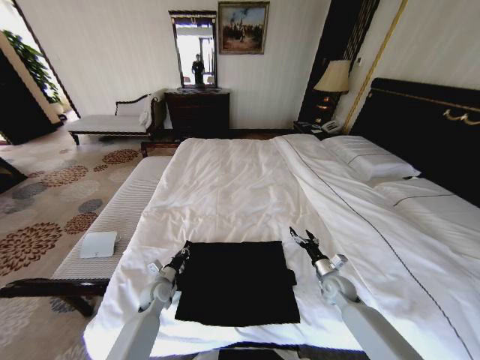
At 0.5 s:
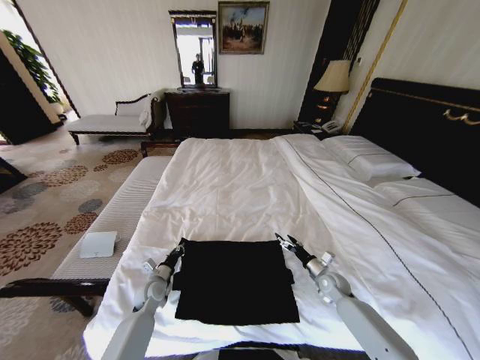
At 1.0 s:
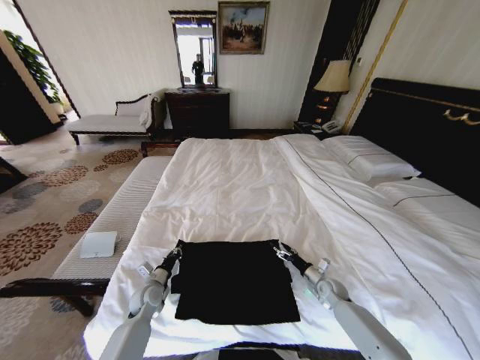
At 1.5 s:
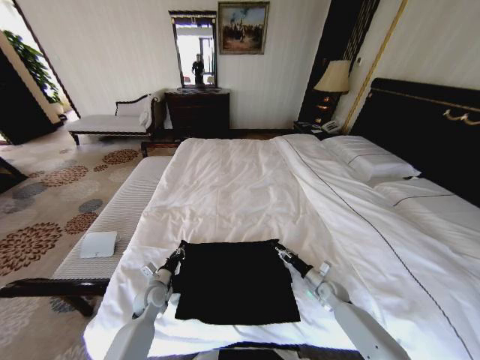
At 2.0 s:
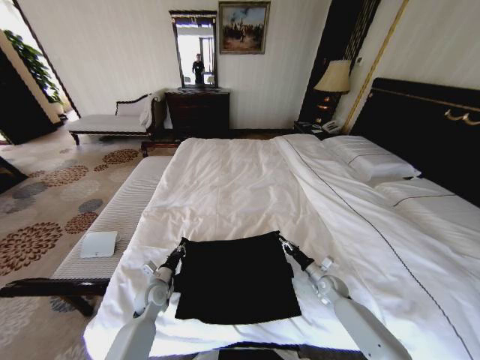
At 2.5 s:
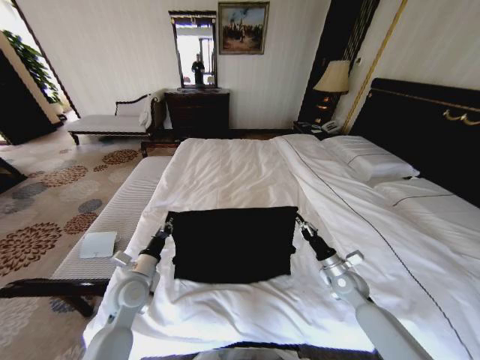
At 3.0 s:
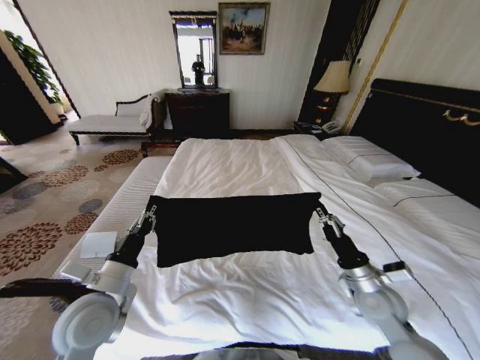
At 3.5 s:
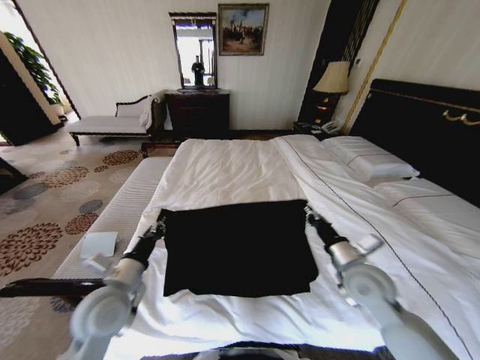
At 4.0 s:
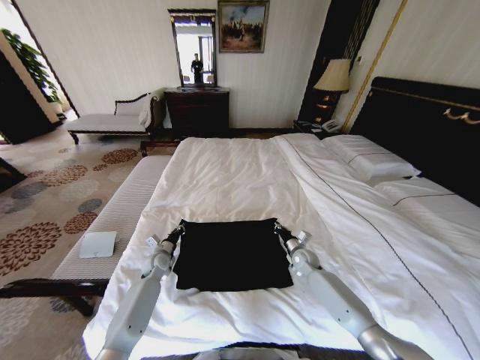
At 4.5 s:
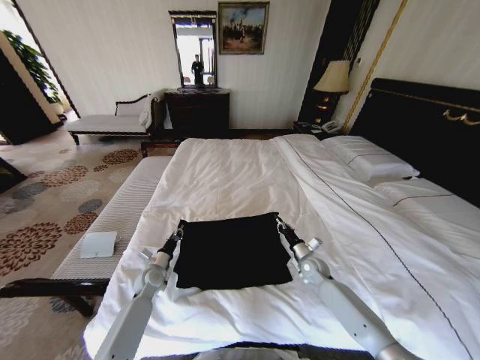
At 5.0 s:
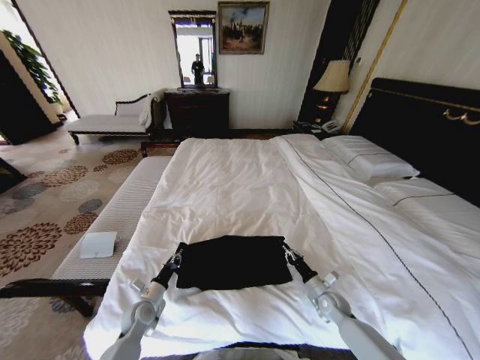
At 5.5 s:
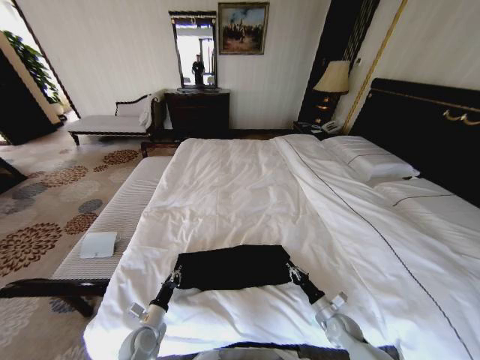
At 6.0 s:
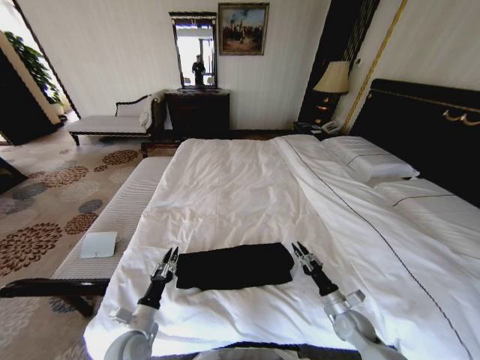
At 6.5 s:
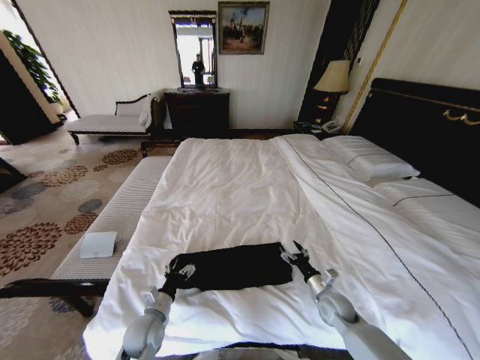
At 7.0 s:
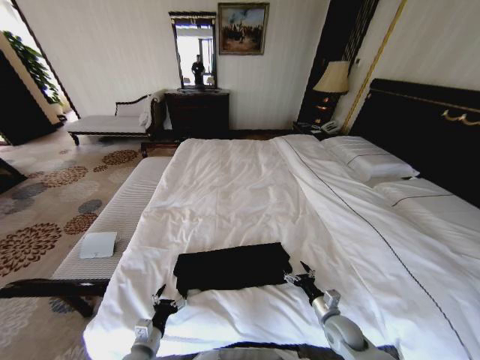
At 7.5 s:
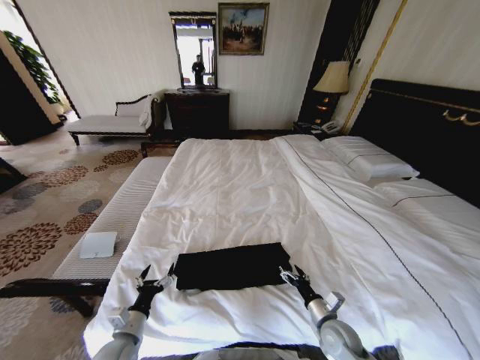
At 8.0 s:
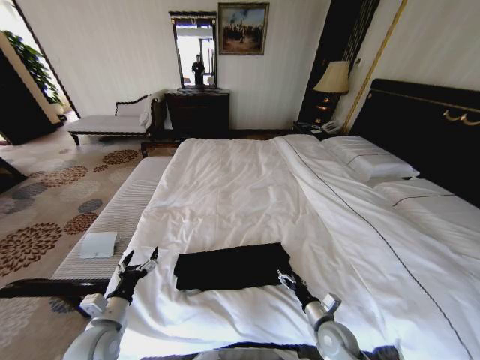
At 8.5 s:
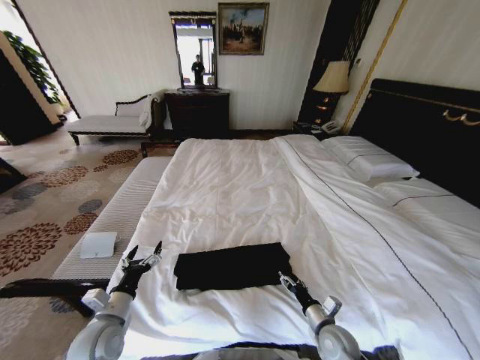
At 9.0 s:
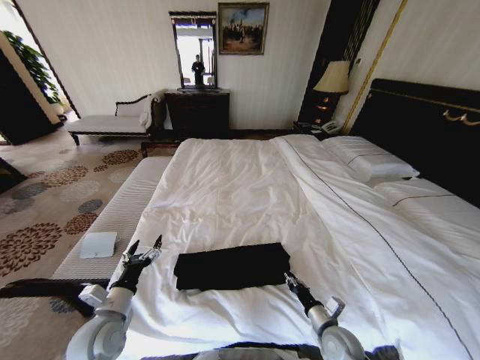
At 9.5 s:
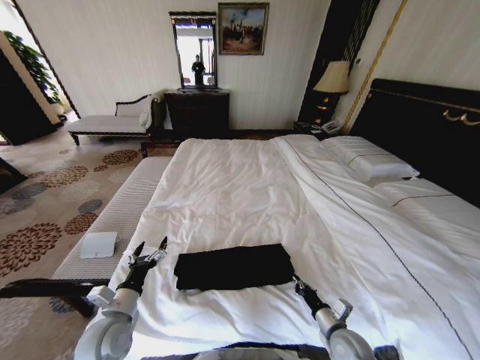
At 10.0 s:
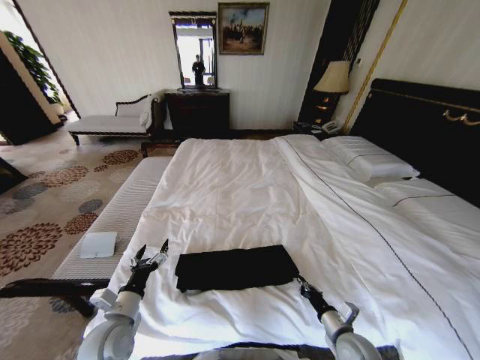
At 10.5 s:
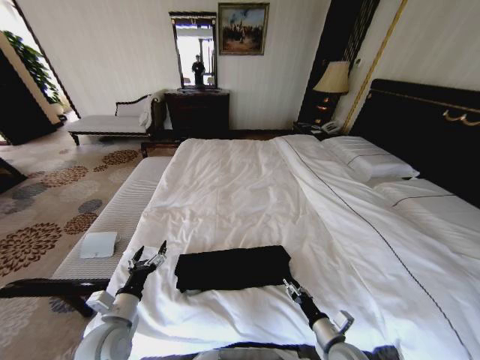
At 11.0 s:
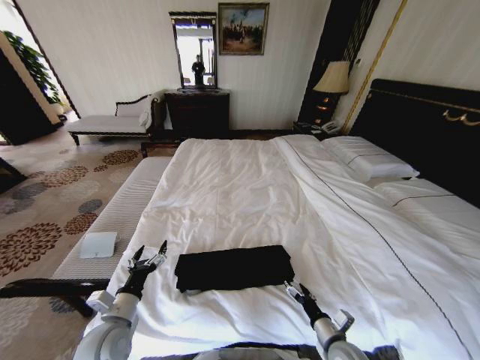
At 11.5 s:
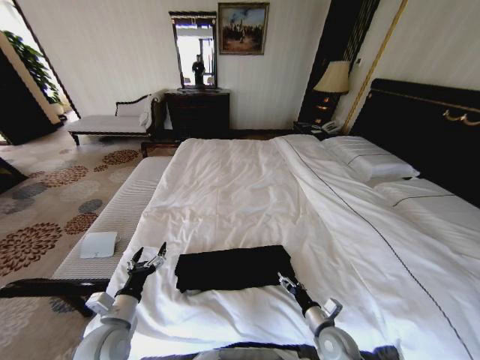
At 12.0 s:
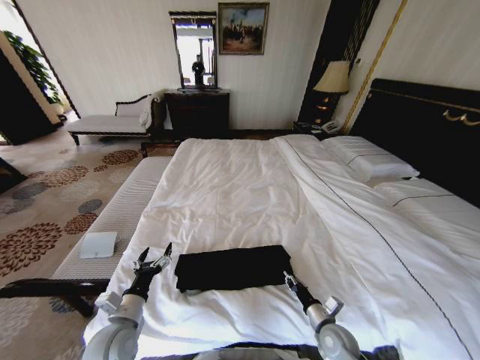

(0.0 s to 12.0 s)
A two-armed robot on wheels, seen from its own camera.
Task of the whole recording: Fold the clothes on the bed.
0.0 s - 2.0 s: The right gripper moves downward, about 5 cm, and closes its fingers.
2.0 s - 4.0 s: The left gripper travels forward by about 10 cm, and moves roughly 20 cm upward and comes back. The right gripper is displaced to the left and forward by roughly 10 cm, and moves some 25 cm upward and comes back.
4.0 s - 6.0 s: The right gripper shifts approximately 20 cm backward and to the right. Meanwhile the left gripper travels backward by some 25 cm.
6.0 s - 8.0 s: The right gripper shifts some 10 cm to the left, and opens up; the left gripper is displaced upward and to the left by approximately 10 cm, and opens its fingers.
8.0 s - 10.0 s: The right gripper closes its fingers.
10.0 s - 12.0 s: The right gripper opens, then closes once more.

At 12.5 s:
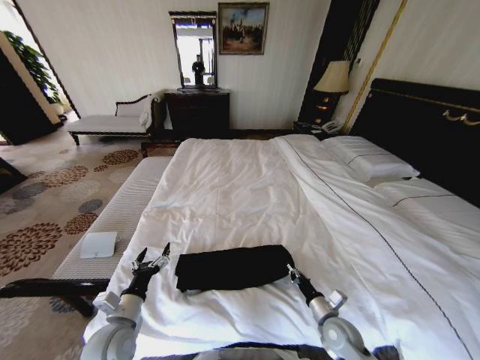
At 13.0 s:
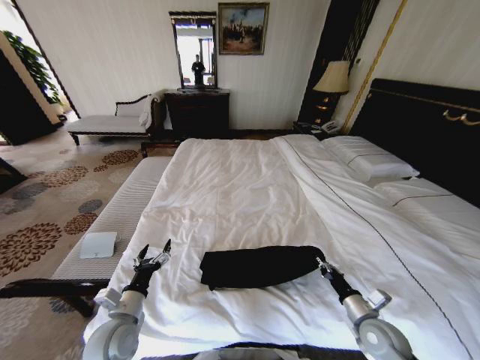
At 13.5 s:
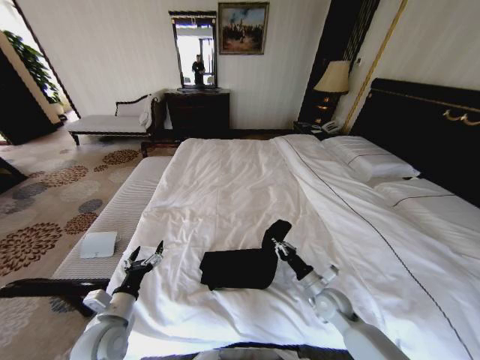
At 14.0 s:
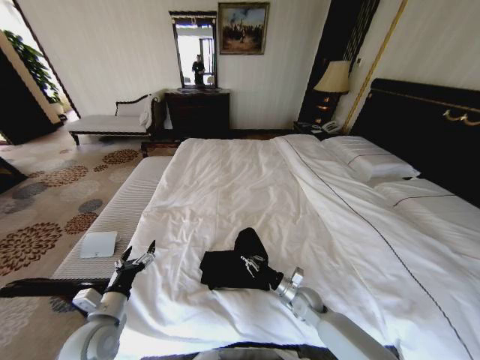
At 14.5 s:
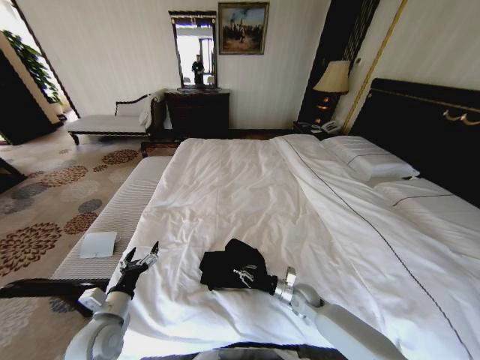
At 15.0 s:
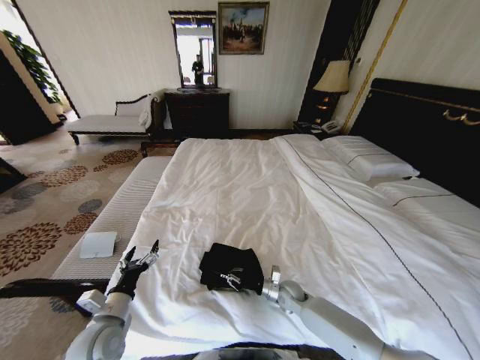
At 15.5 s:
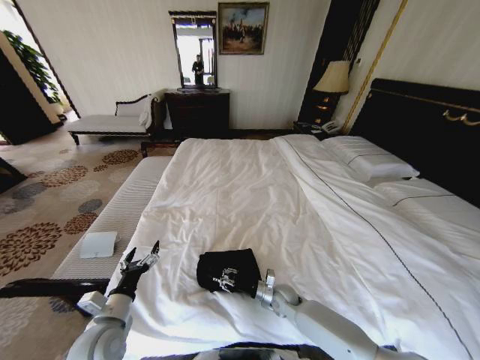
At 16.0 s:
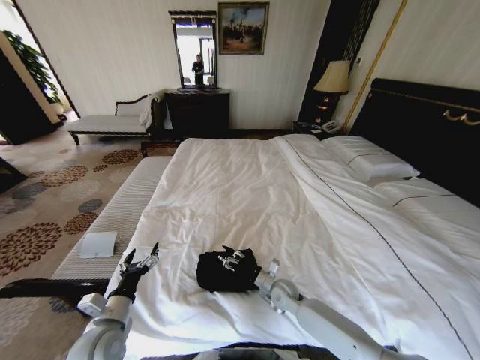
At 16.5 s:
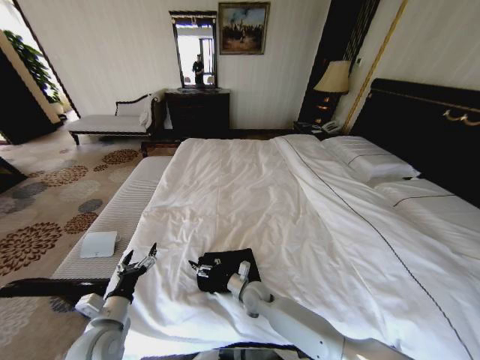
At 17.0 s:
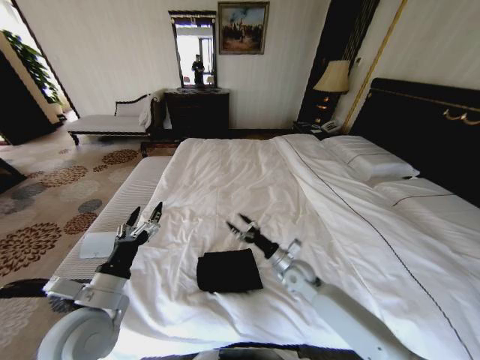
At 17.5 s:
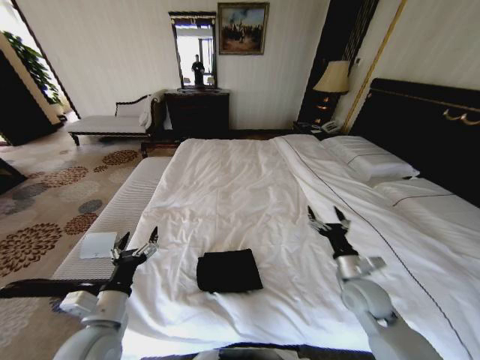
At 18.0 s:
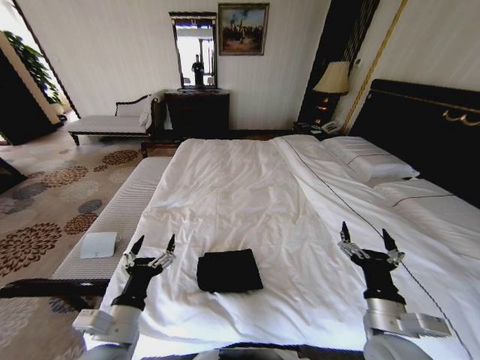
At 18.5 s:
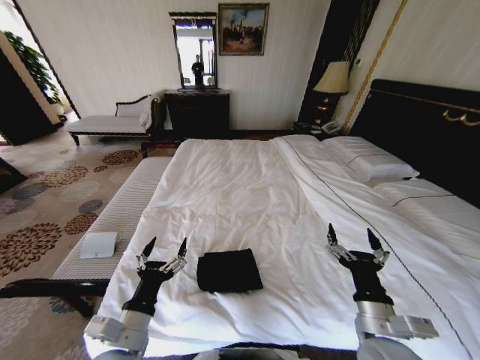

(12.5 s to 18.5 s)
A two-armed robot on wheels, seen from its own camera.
Task of the whole recording: Fold the clothes on the bed.
12.5 s - 14.5 s: The right gripper shifts approximately 10 cm forward and to the left.
14.5 s - 16.5 s: The right gripper heads to the left, covering about 15 cm, and opens up.
16.5 s - 18.5 s: The right gripper moves upward, backward and to the right, approximately 30 cm. The left gripper moves to the right, upward and backward, roughly 15 cm.

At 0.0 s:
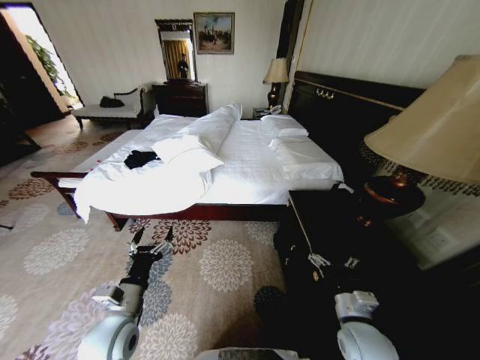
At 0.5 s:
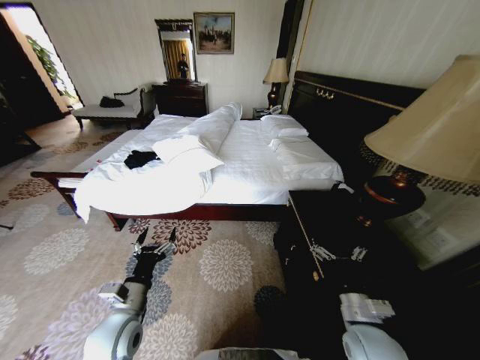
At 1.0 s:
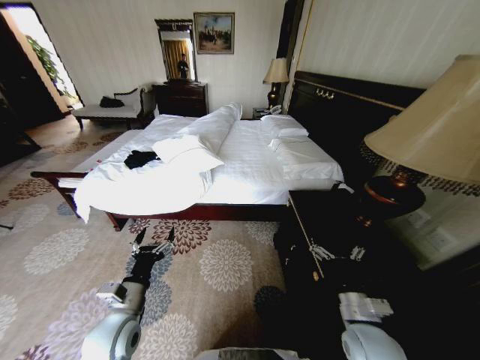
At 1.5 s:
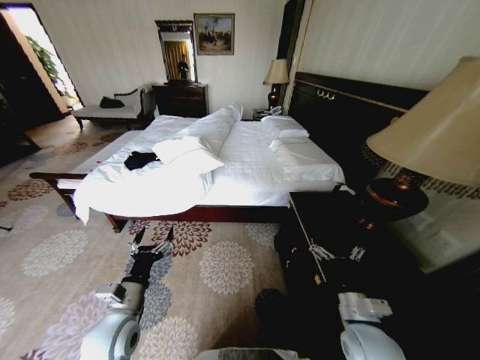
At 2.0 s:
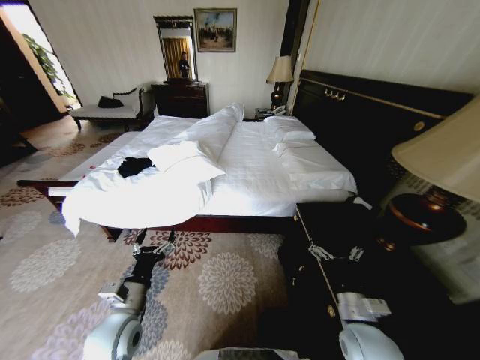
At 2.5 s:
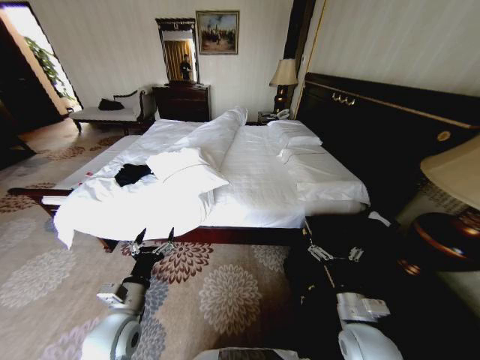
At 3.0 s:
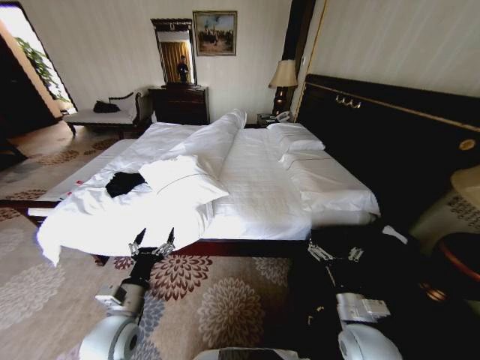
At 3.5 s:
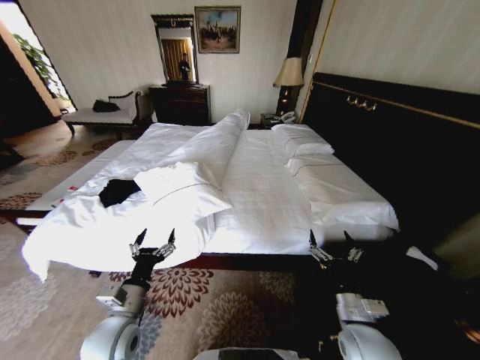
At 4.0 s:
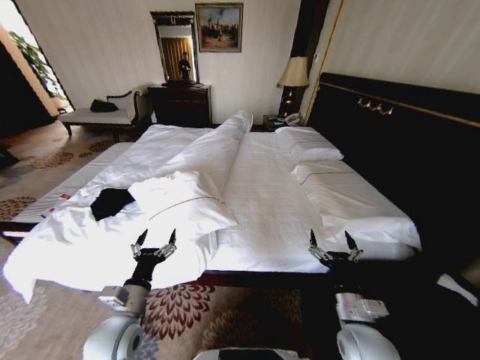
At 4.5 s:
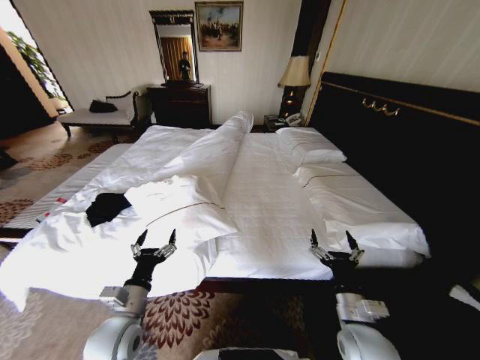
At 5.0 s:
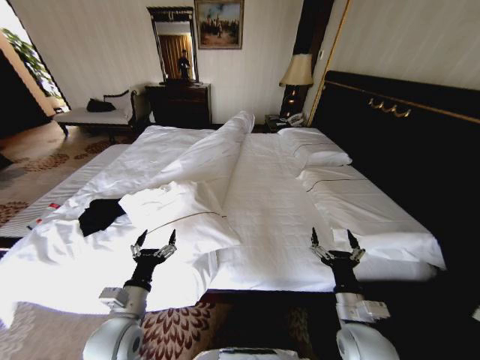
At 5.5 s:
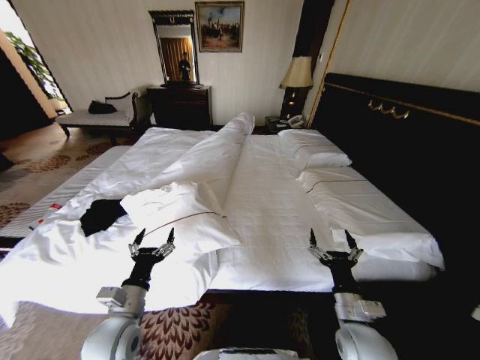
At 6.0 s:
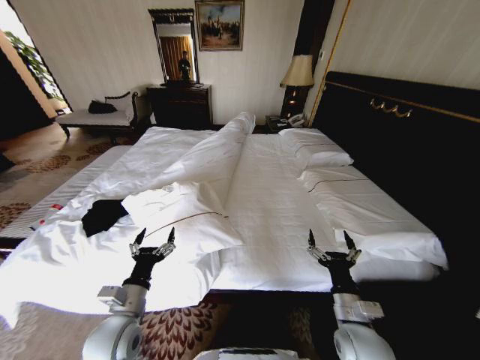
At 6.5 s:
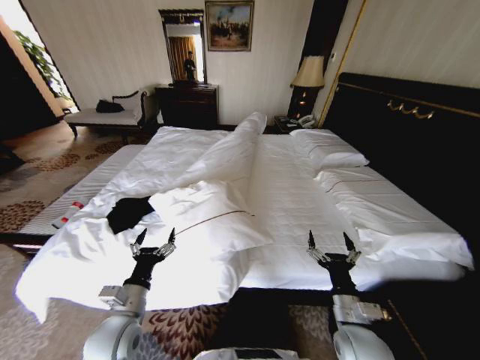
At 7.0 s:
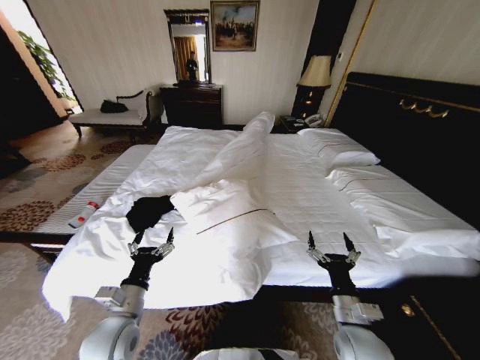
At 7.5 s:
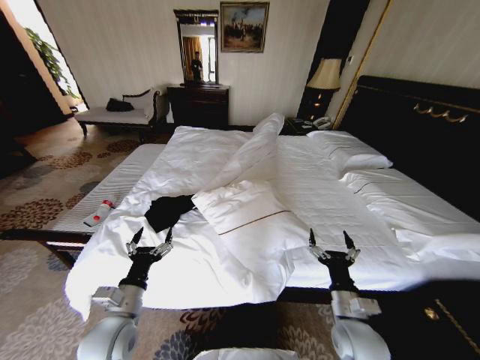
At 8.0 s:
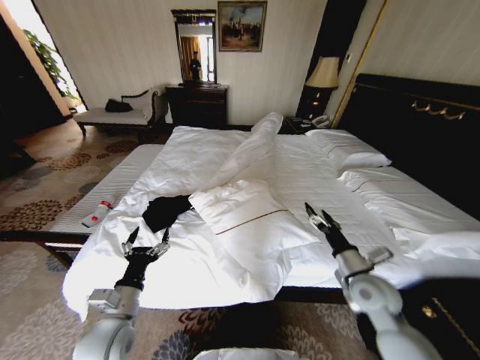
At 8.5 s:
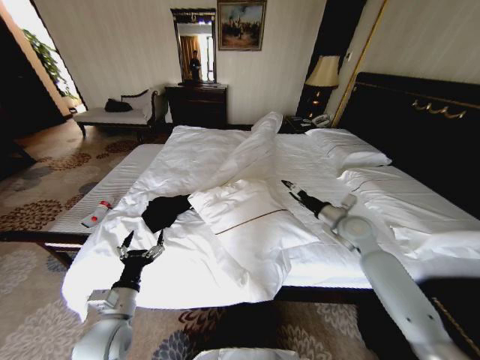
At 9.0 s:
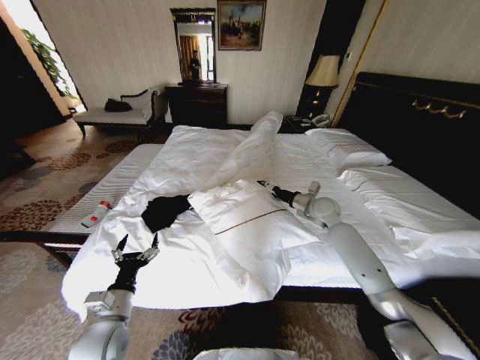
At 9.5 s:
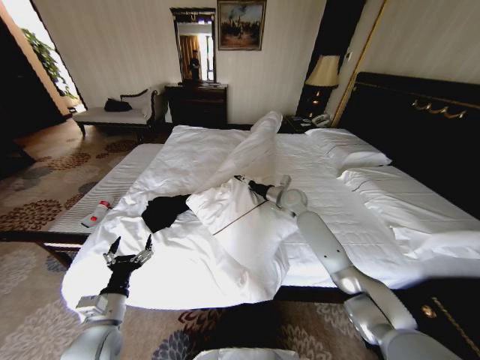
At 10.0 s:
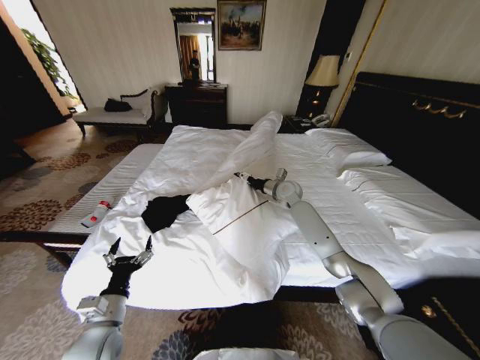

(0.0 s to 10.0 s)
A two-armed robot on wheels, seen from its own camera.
Task of the whole recording: Fold the clothes on the bed.
6.0 s - 8.0 s: The right gripper travels forward, to the right and upward by roughly 10 cm.
8.0 s - 10.0 s: The right gripper moves forward, some 35 cm.
